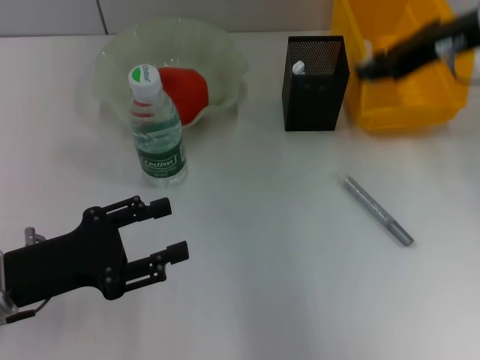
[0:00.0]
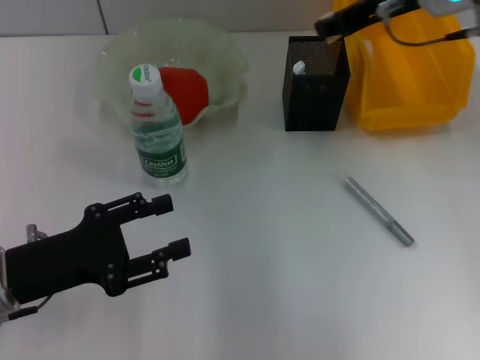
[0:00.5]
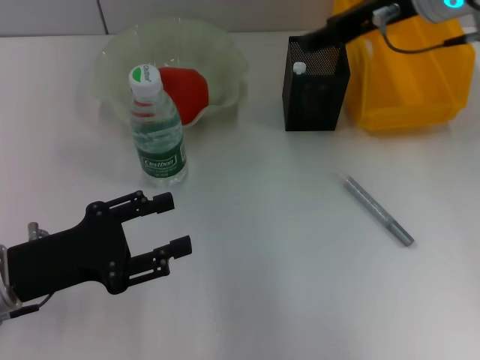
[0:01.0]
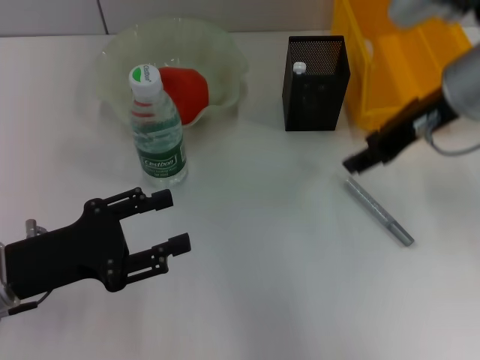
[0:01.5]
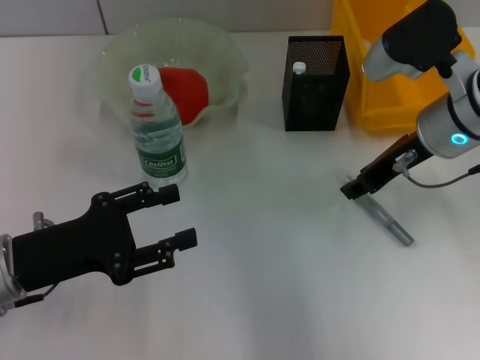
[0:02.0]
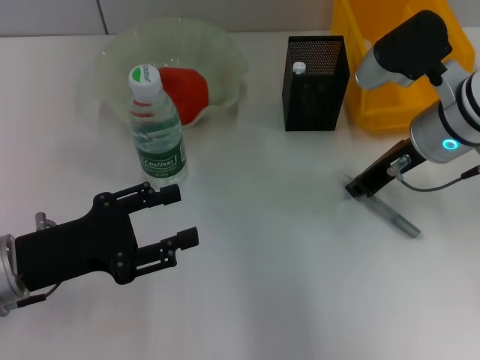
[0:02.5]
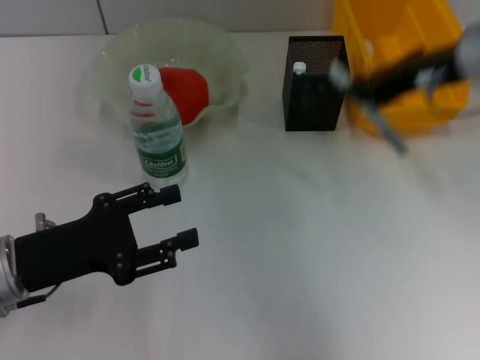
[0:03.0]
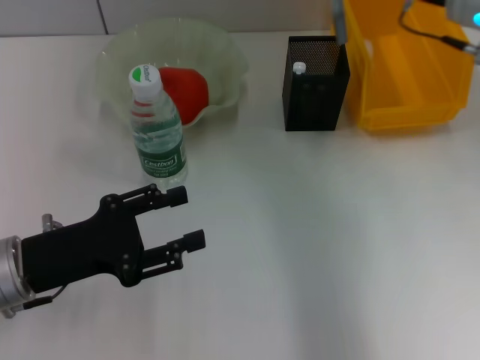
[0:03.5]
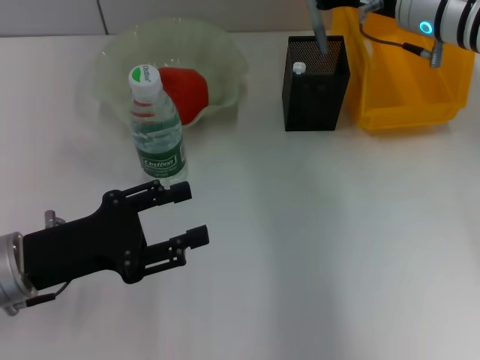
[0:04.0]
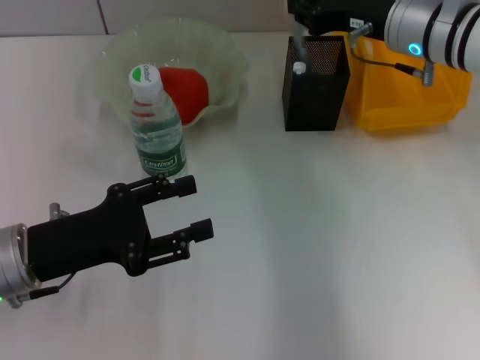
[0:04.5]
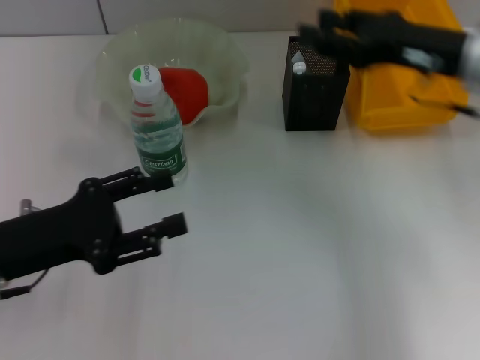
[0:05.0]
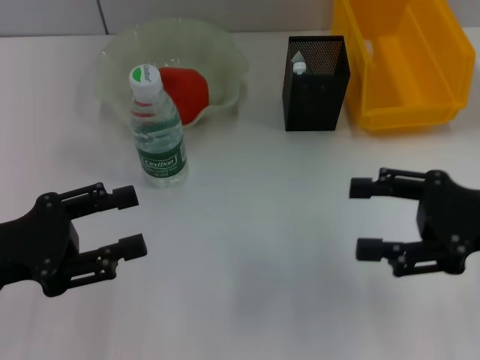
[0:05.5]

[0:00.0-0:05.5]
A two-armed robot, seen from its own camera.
Step, 0:01.0 to 0:02.0: Grab the gray glue with the right hand.
Step, 0:03.0 to 0:04.5: Place the gray glue into the pen holder with the right hand.
0:00.0 to 0:02.0: The right gripper travels downward by some 10 cm, and opens.
0:02.0 to 0:03.5: The right gripper goes about 5 cm upward, and closes.
0:03.5 to 0:05.5: The right gripper travels backward, downward and to the right by about 20 cm, and opens up; the left gripper ends up roughly 5 cm from where it was.
